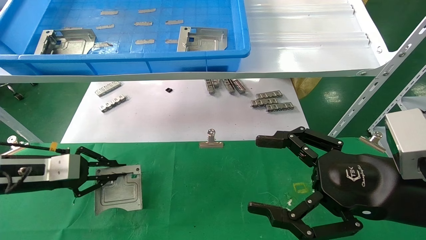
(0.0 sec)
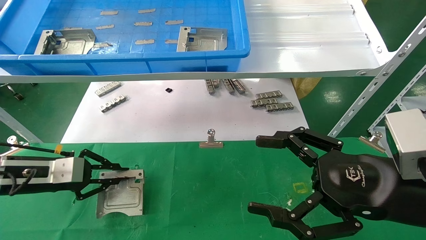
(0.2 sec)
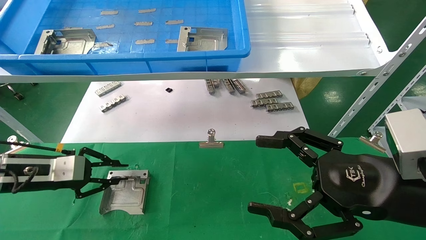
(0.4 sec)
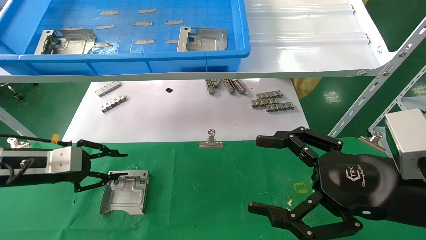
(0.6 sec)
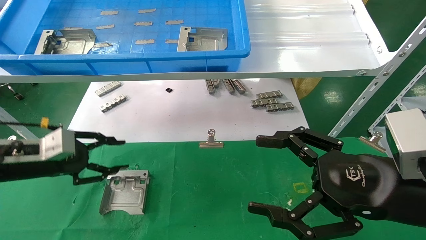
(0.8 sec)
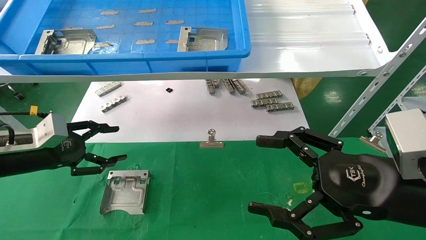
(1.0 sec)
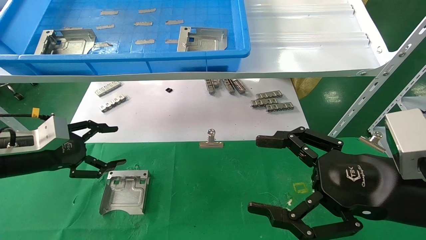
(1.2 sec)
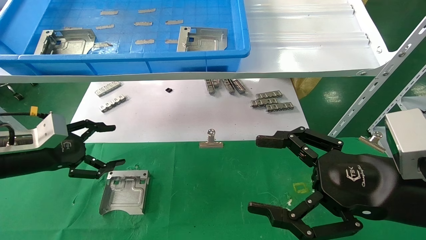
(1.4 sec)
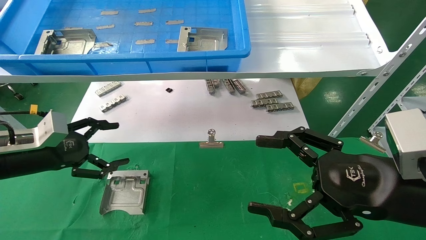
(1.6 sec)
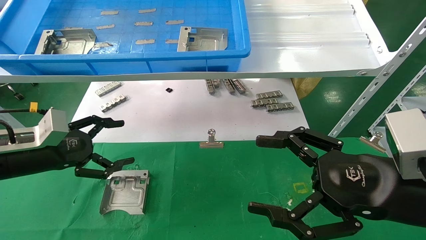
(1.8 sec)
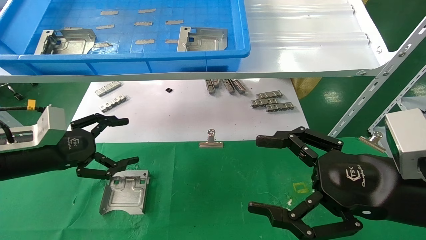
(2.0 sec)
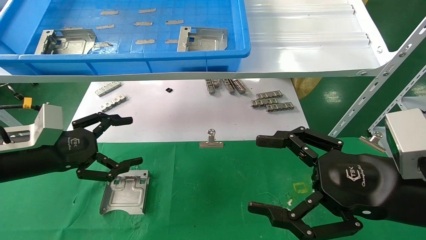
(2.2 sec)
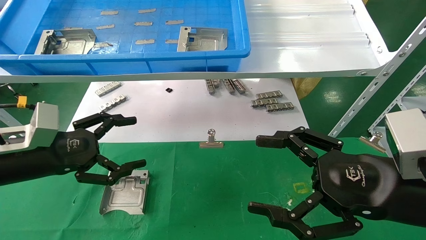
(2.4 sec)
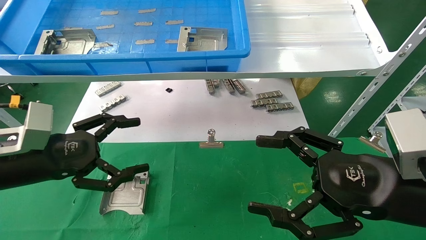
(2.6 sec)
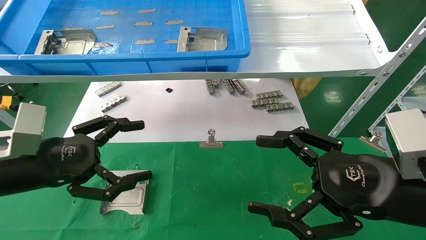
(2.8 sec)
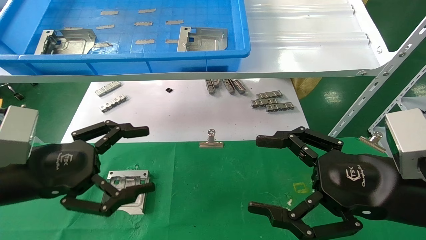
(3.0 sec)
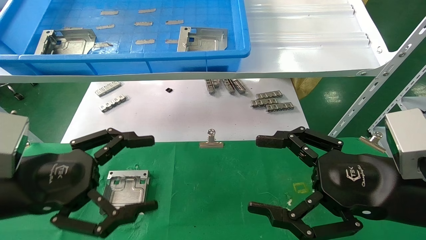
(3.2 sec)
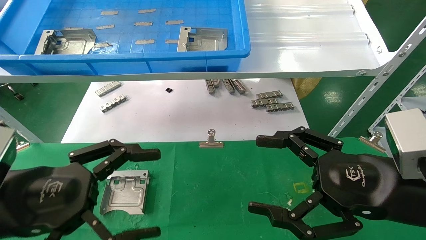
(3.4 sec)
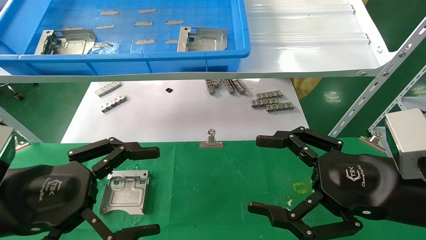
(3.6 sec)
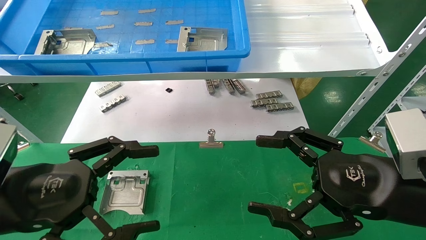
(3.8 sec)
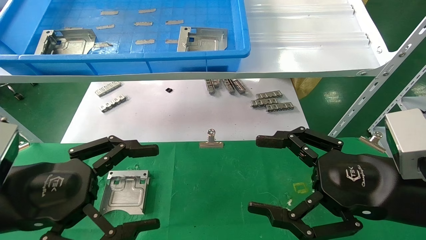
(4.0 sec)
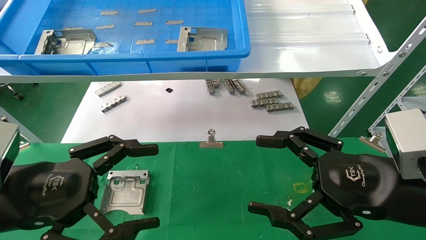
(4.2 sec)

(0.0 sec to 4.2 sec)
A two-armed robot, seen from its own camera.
Task of the whole recording: use the mechanical arm to pick up the parts and place them on the table.
0.0 sec - 1.4 sec: The left gripper opens its fingers.
1.4 sec - 2.8 sec: The left gripper heads backward and to the right, covering some 10 cm.
2.8 sec - 4.2 sec: The left gripper is displaced backward by roughly 5 cm.
